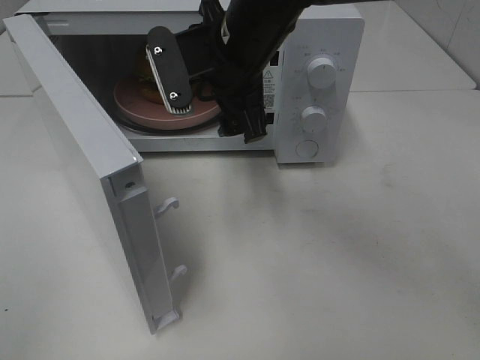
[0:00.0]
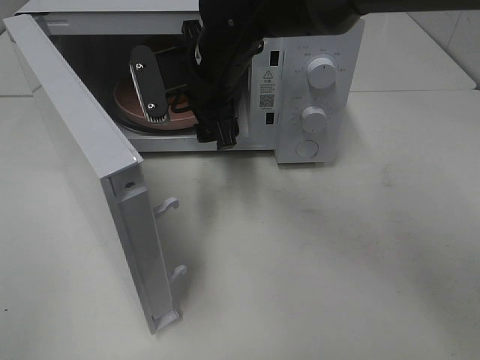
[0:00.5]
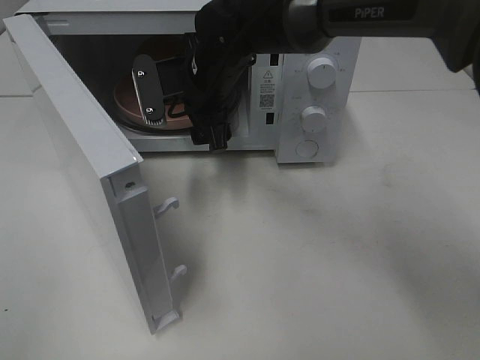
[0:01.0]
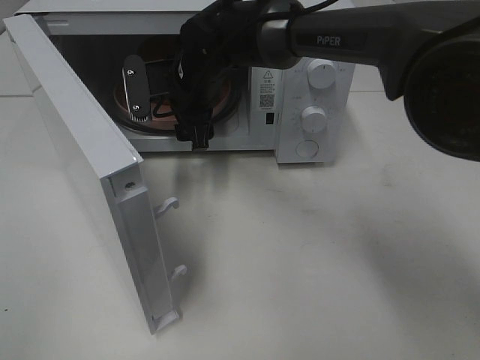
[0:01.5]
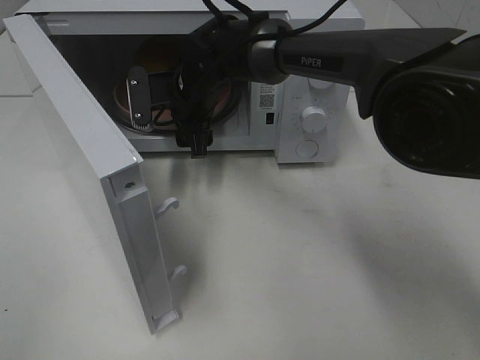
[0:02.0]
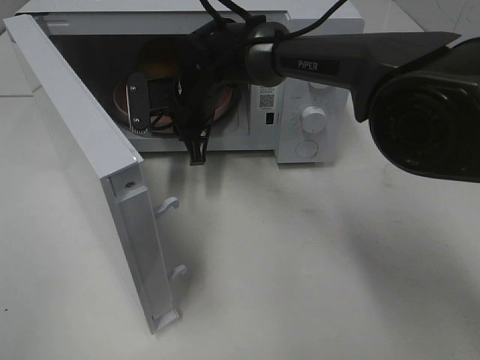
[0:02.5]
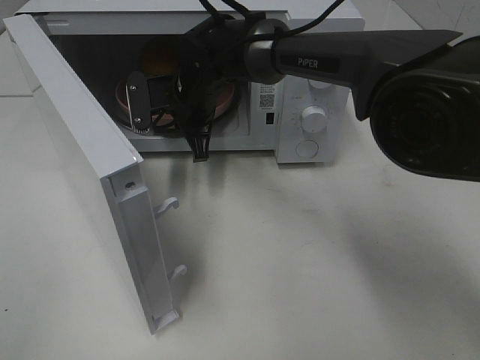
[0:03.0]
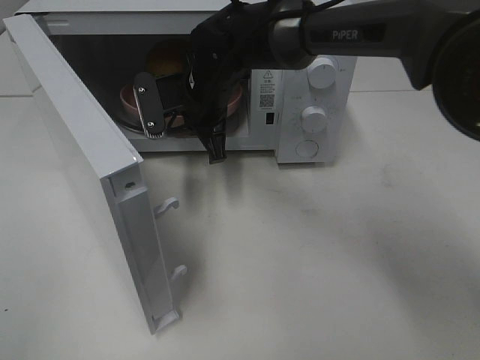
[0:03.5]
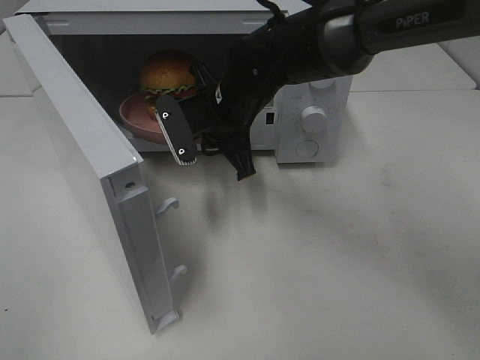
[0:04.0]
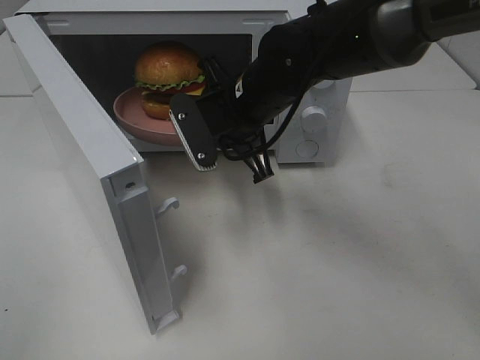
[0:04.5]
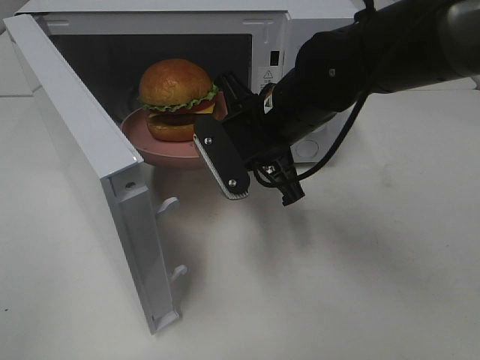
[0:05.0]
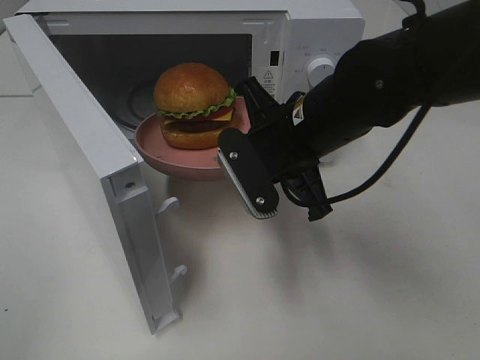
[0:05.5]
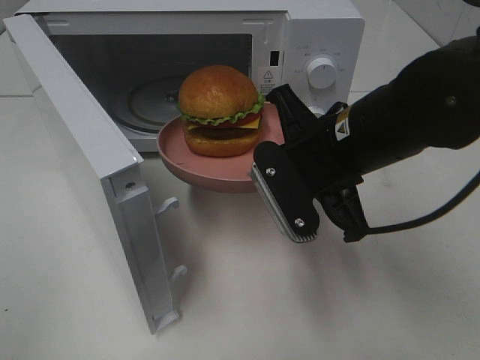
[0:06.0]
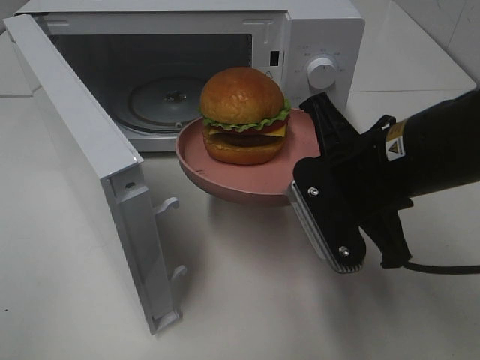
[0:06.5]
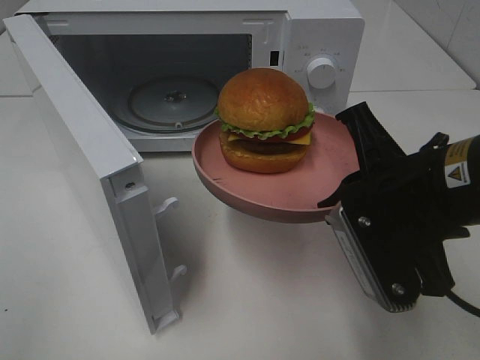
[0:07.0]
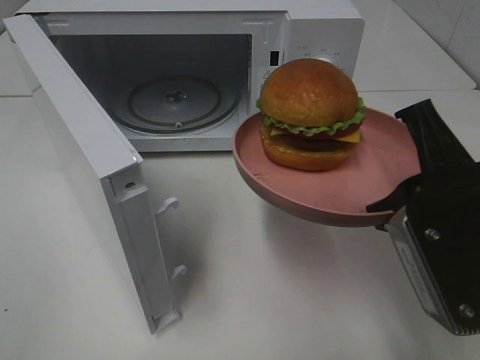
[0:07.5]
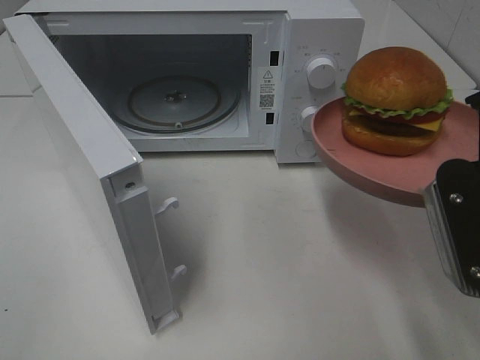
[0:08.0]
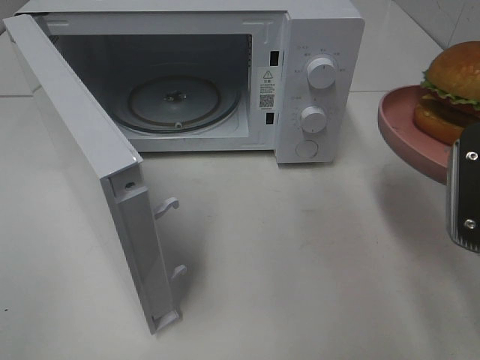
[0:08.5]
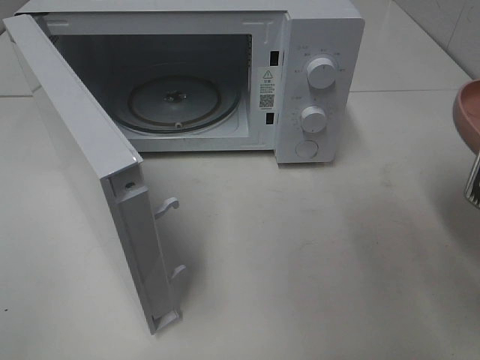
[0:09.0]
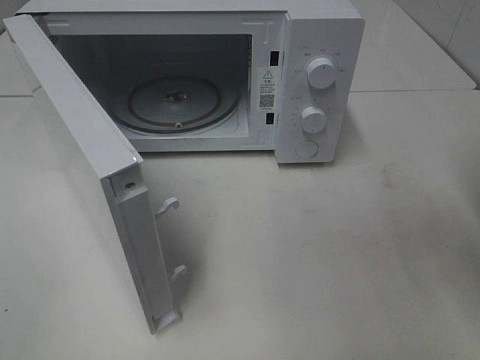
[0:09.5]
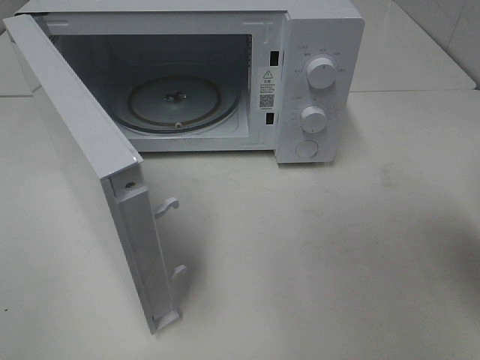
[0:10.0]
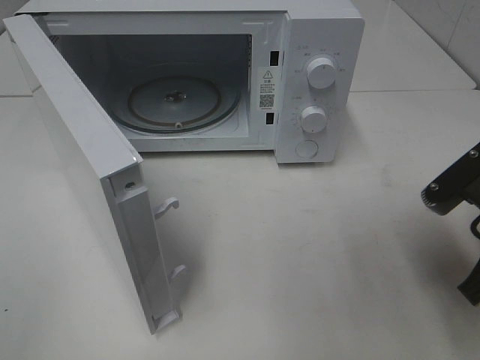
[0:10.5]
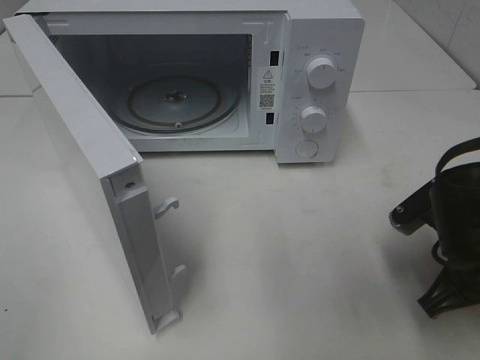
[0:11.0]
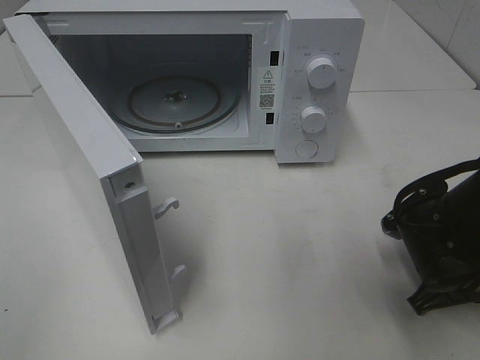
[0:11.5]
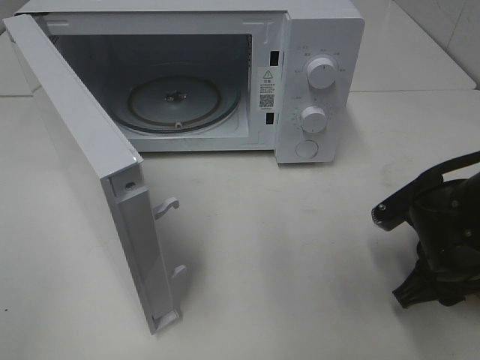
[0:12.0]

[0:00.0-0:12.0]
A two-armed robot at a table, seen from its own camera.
Task of the whole recording: Heat the burger.
Step, 0:00.0 to 0:03.0: Right hand: grab the plate with the hamburger.
0:00.0 to 0:02.0: The right gripper travels downward, forward and to the left by roughly 15 cm.
0:02.0 to 0:04.0: The right gripper moves backward and to the right, some 10 cm, and closes its fingers.
0:04.0 to 0:06.0: The right gripper is displaced backward and to the right by roughly 15 cm.
0:06.0 to 0:08.0: The right gripper is displaced to the right and backward by some 15 cm.
0:10.0 to 0:12.0: The right gripper goes about 15 cm downward and forward, and opens its fingers.

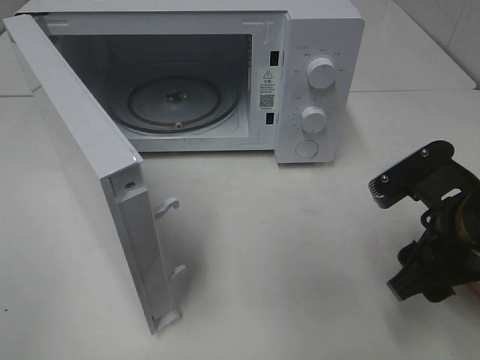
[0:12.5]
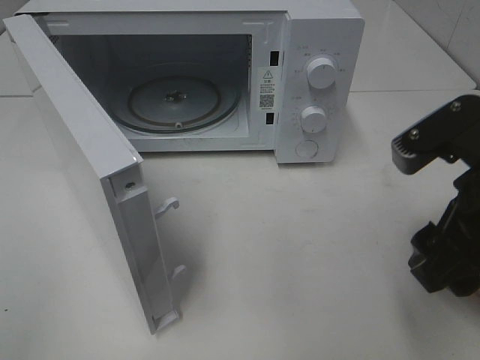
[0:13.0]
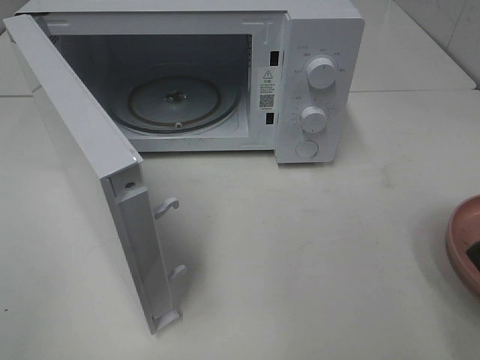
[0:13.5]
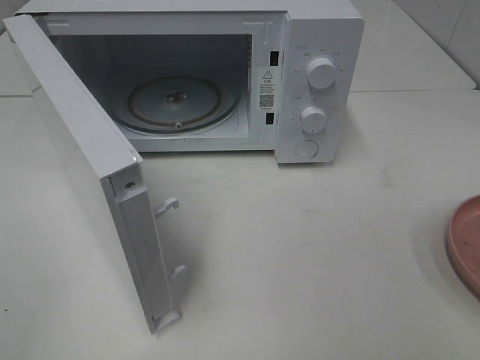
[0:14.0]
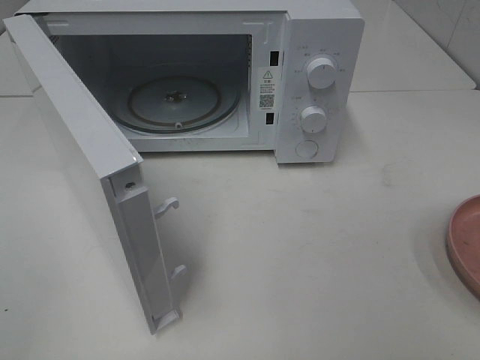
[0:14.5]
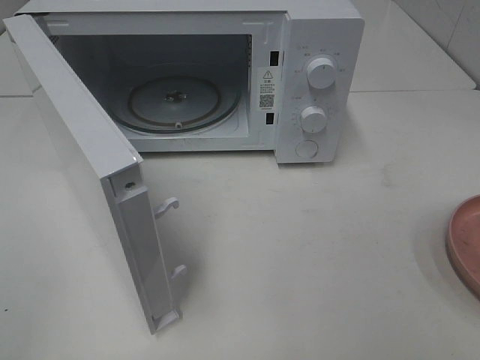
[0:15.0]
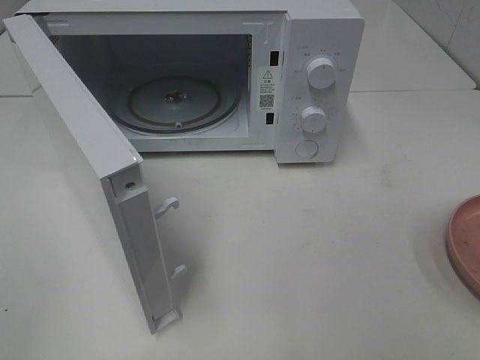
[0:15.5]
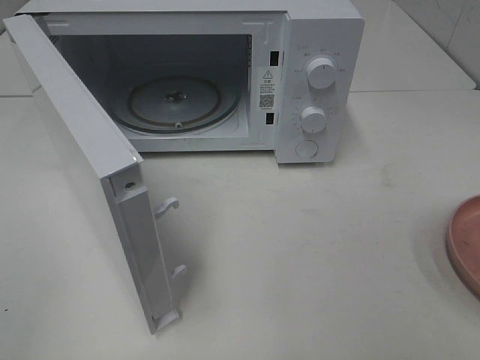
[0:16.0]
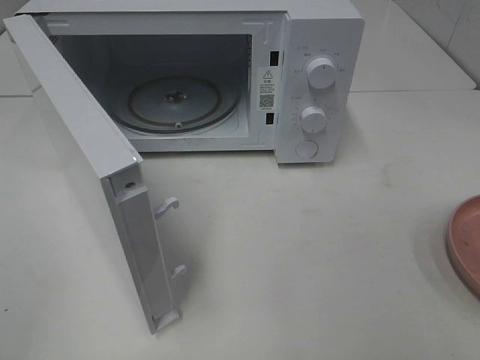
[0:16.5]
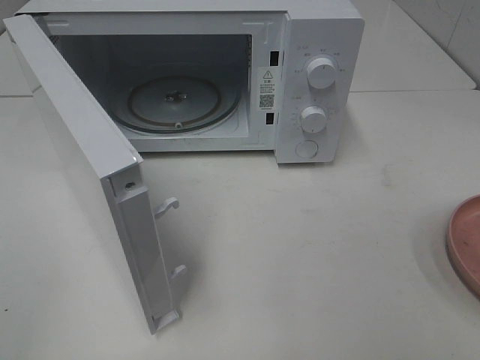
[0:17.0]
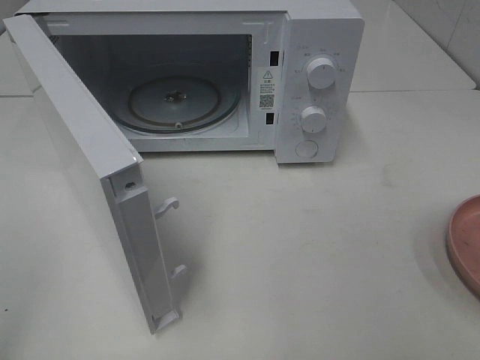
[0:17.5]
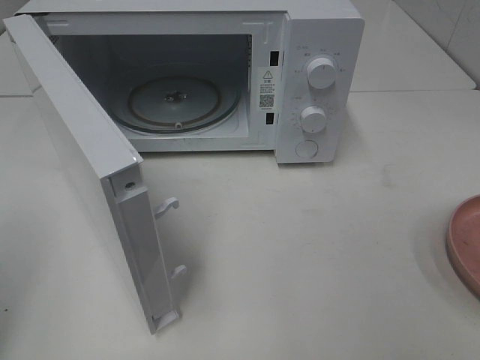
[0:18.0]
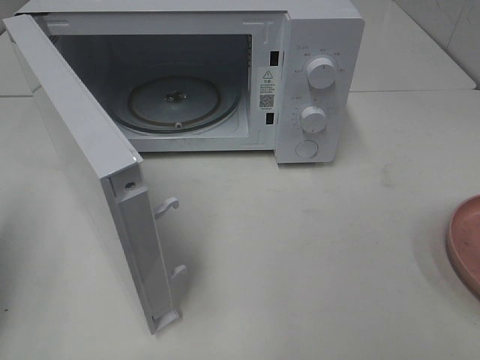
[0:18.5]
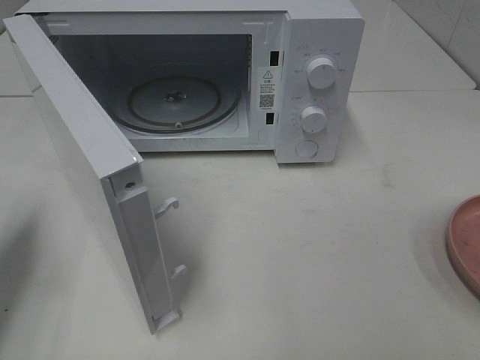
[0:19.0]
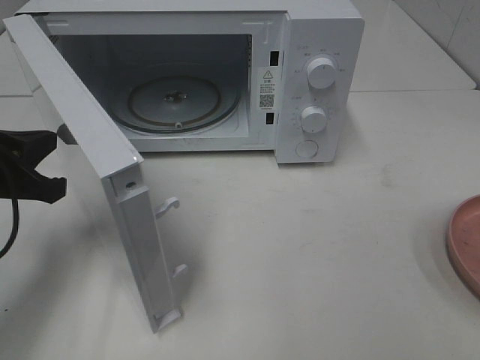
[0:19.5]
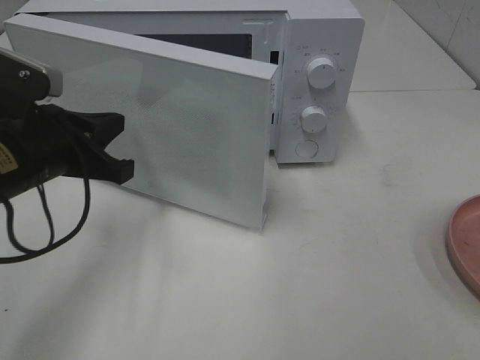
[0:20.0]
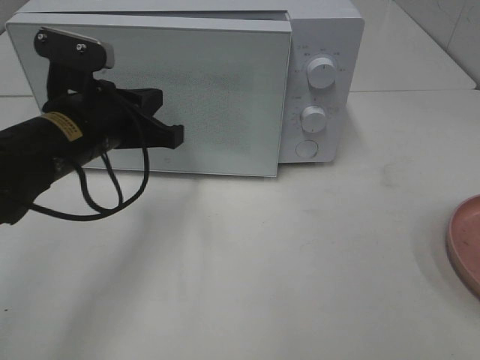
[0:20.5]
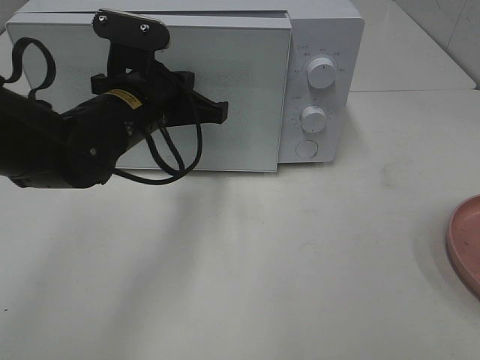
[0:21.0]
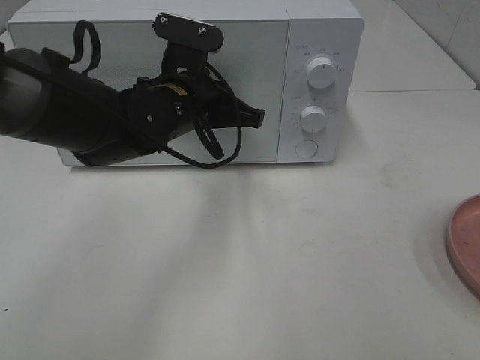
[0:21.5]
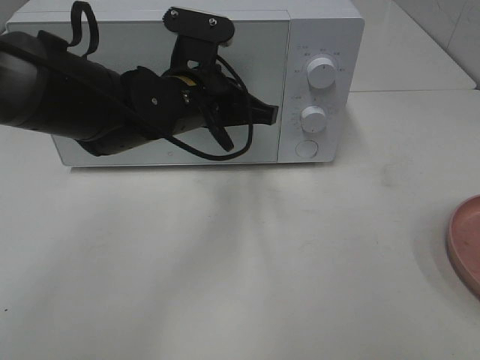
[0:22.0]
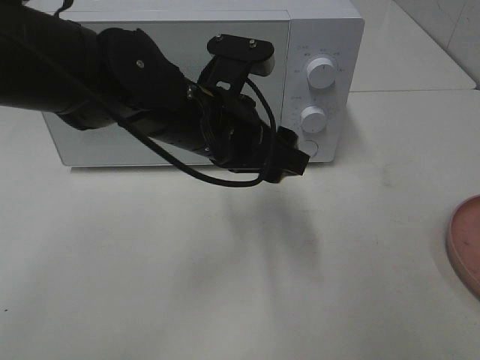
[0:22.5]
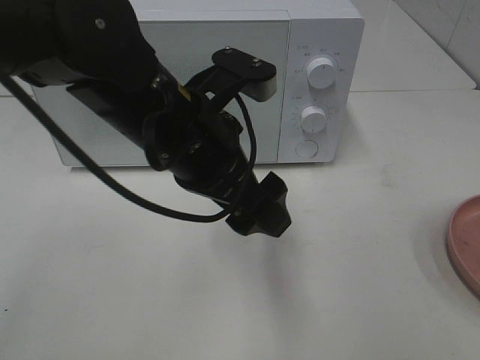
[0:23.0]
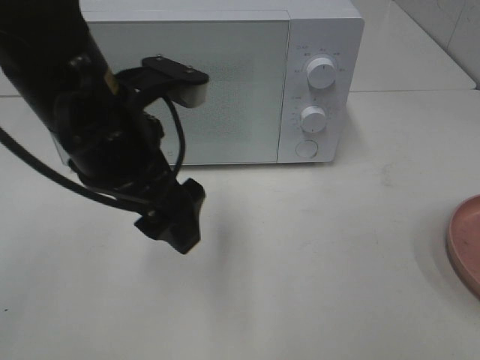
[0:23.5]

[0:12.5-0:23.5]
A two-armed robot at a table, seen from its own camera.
Task of the whole recording: Heat the burger.
Step, 0:12.5 to 0:22.5: Left hand: close the microwave door.
0:12.5 to 0:14.5: The right gripper travels backward, upward and to the right by about 20 cm.
0:18.0 to 0:20.0: The left gripper moves forward, to the right and downward, about 25 cm.
0:20.0 to 0:21.5: The left gripper is displaced to the right and forward by some 15 cm.
0:21.5 to 0:23.5: The left gripper is displaced backward and upward by roughly 15 cm, and opens up.

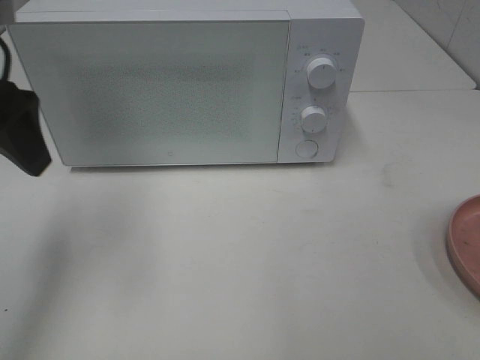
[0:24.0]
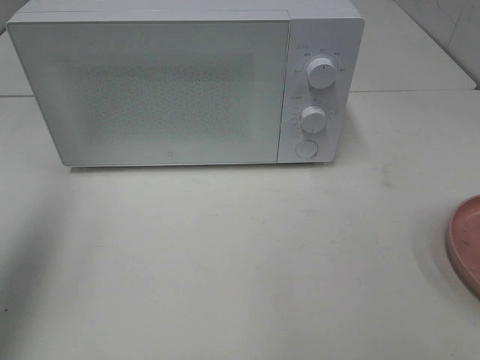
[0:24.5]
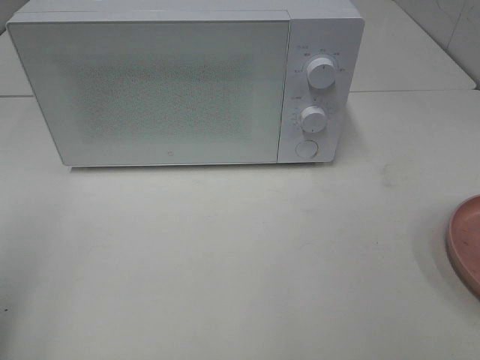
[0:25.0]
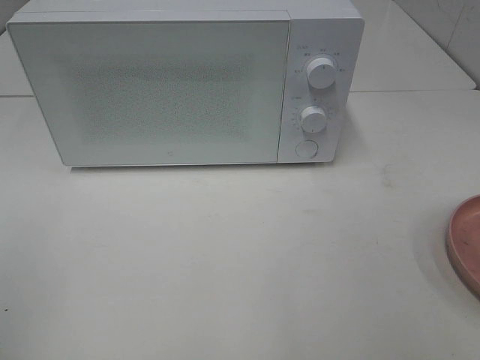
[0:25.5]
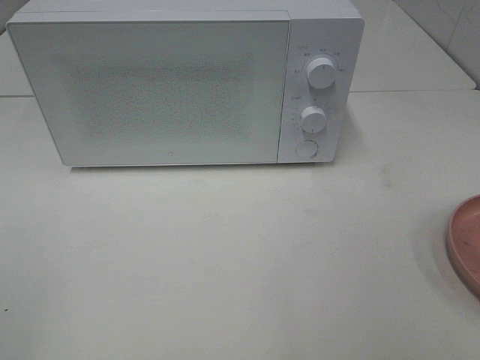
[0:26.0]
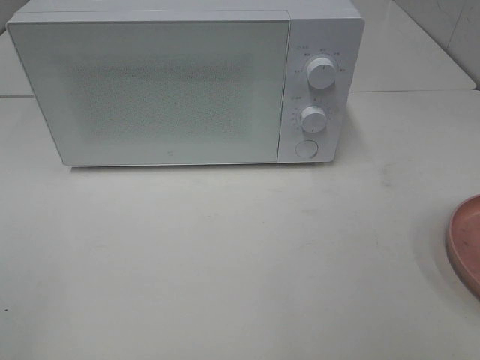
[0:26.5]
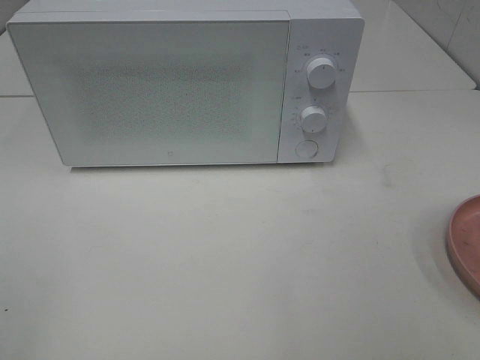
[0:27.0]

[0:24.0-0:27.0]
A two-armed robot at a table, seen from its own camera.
Task of the whole recording: Heat the burger.
0:24.0 to 0:25.5: The left gripper shifts roughly 20 cm backward.
